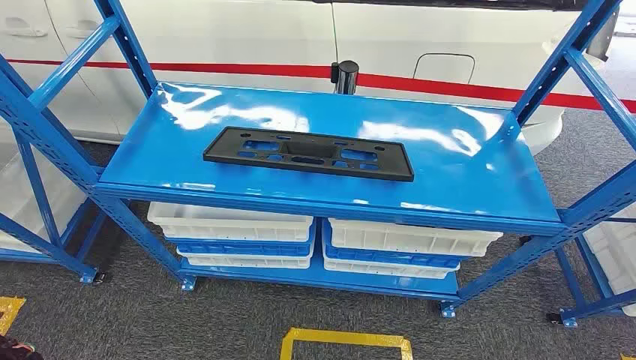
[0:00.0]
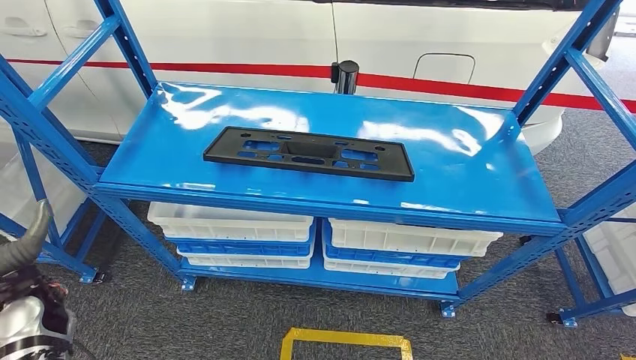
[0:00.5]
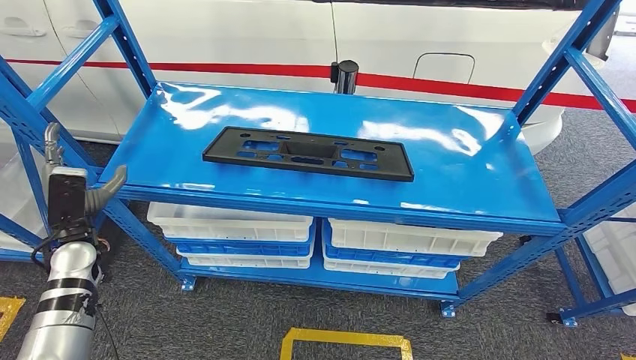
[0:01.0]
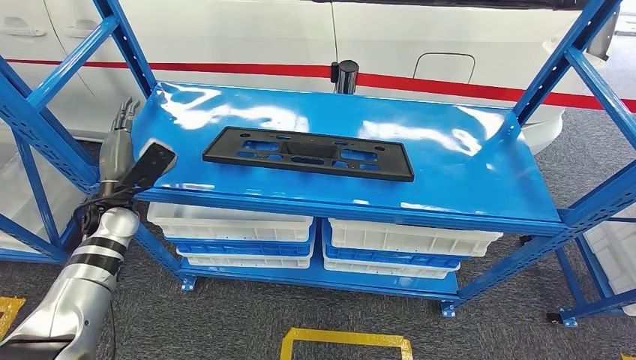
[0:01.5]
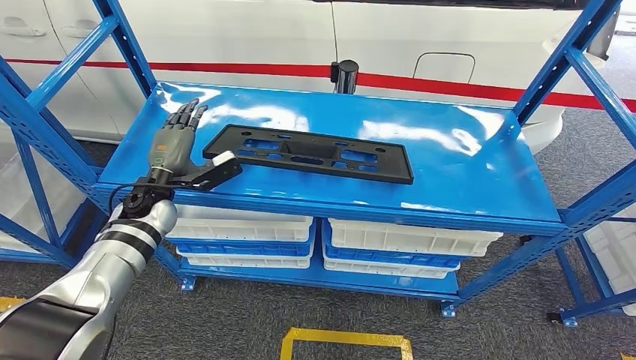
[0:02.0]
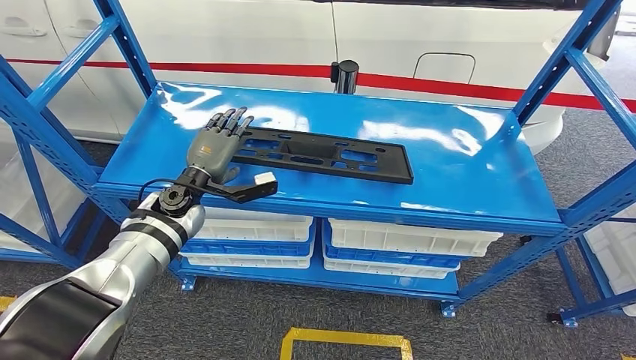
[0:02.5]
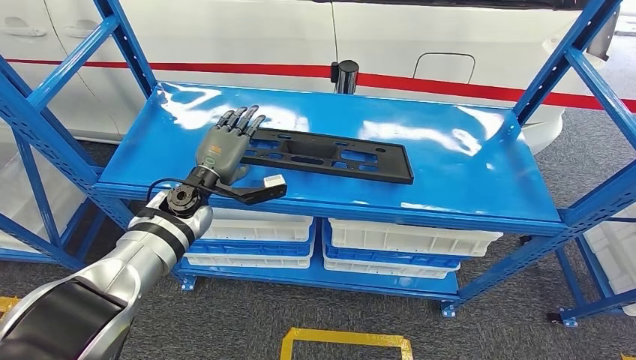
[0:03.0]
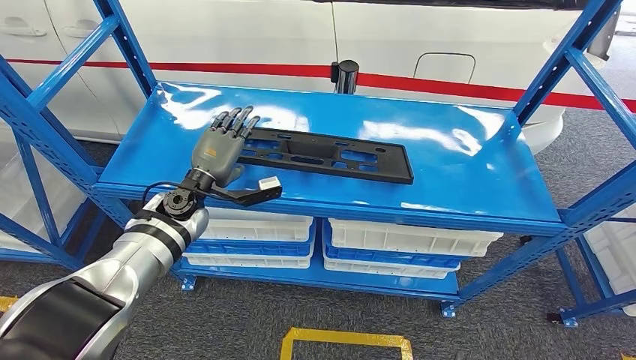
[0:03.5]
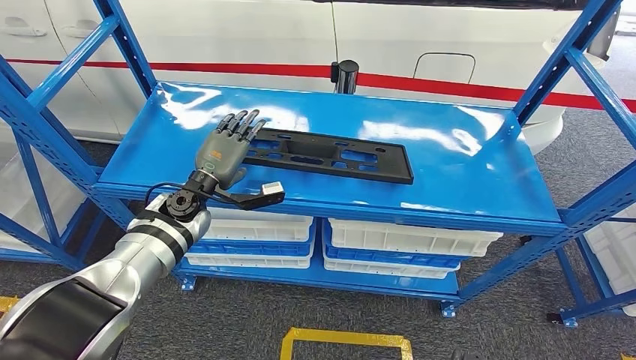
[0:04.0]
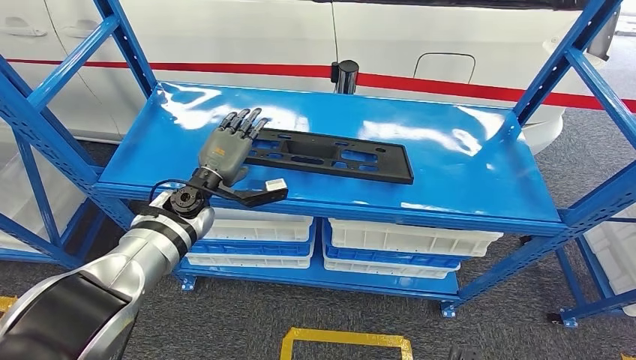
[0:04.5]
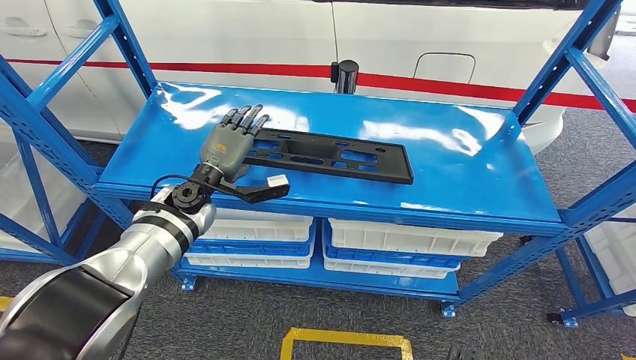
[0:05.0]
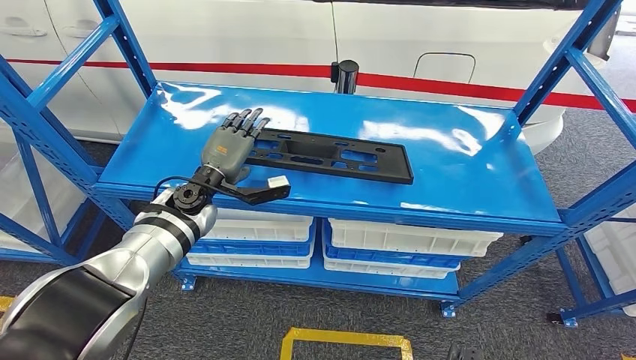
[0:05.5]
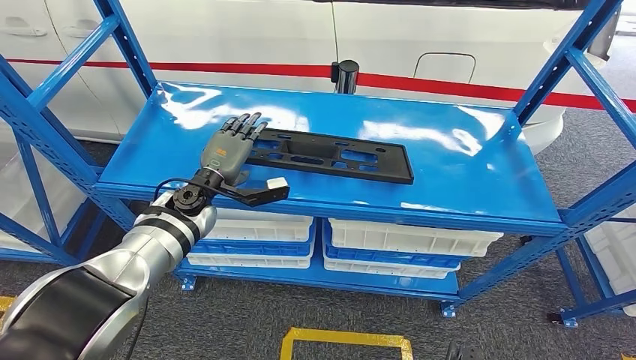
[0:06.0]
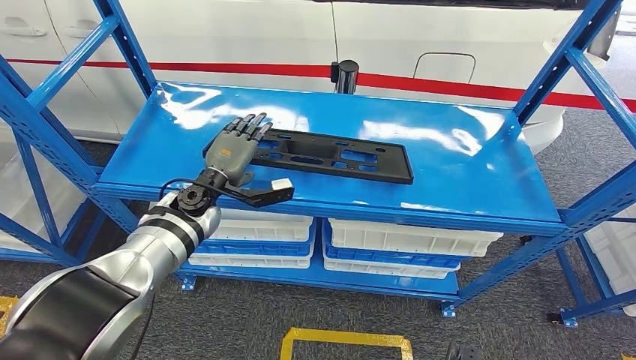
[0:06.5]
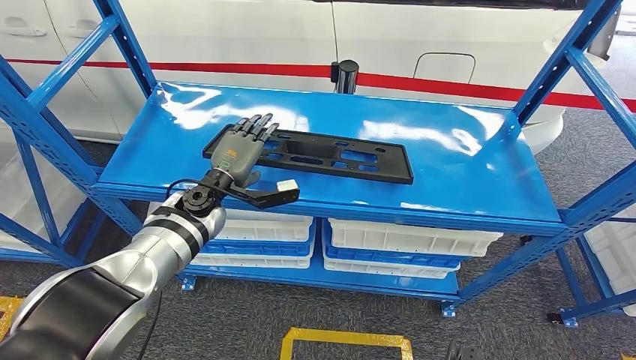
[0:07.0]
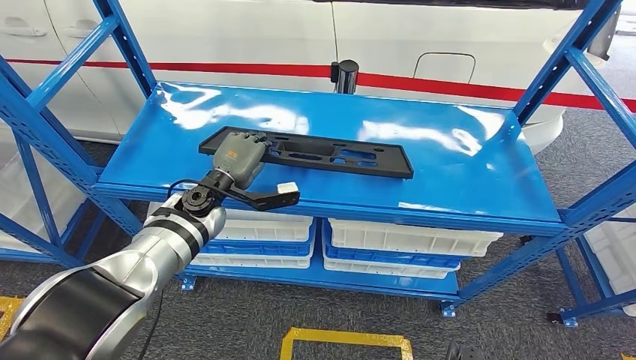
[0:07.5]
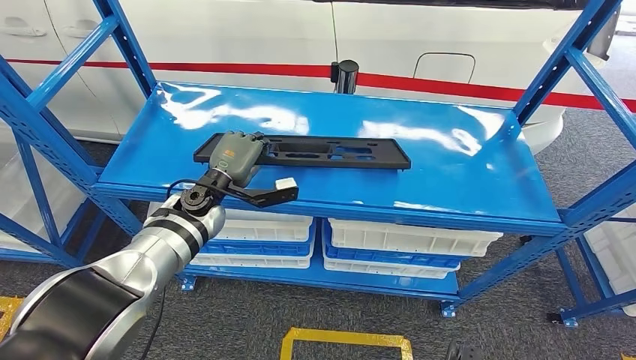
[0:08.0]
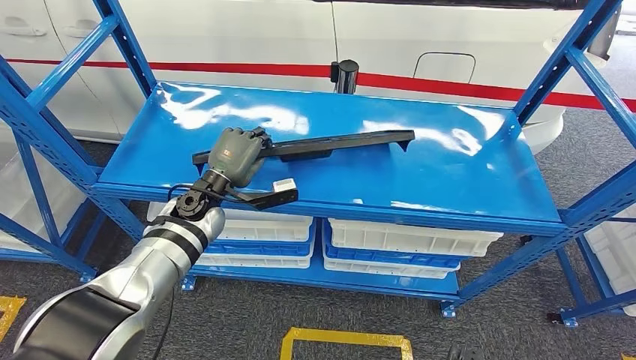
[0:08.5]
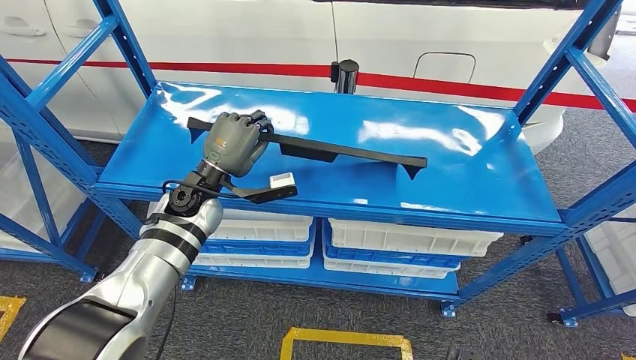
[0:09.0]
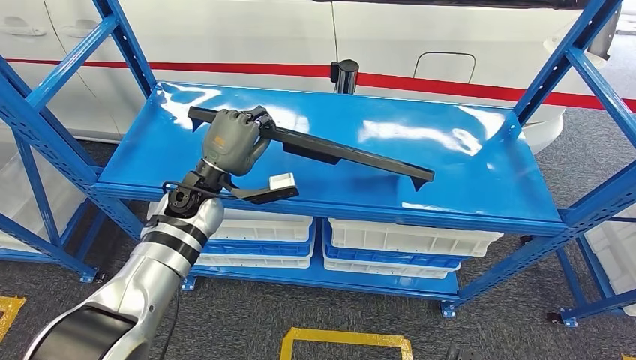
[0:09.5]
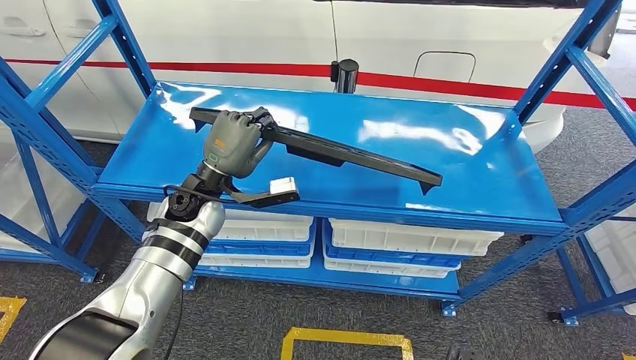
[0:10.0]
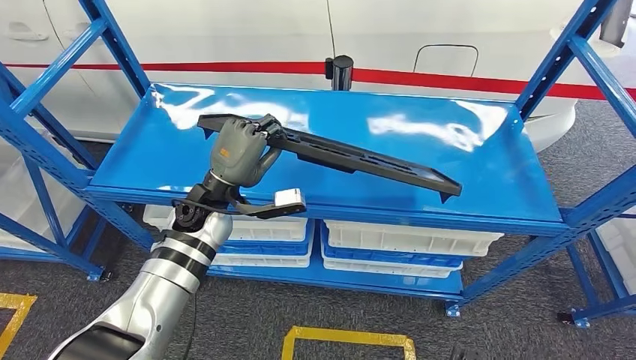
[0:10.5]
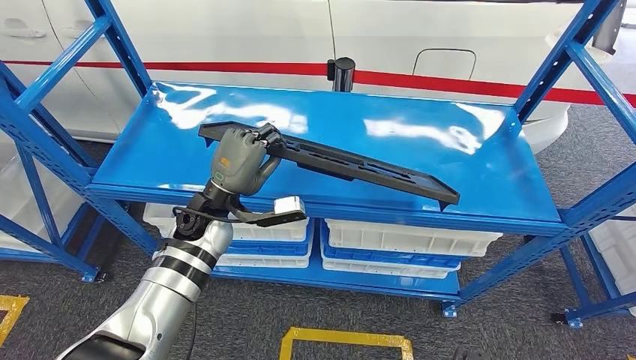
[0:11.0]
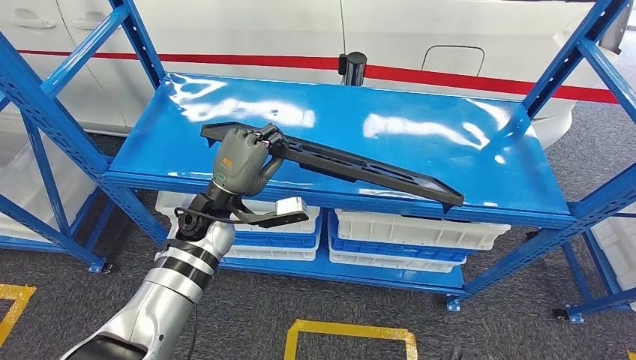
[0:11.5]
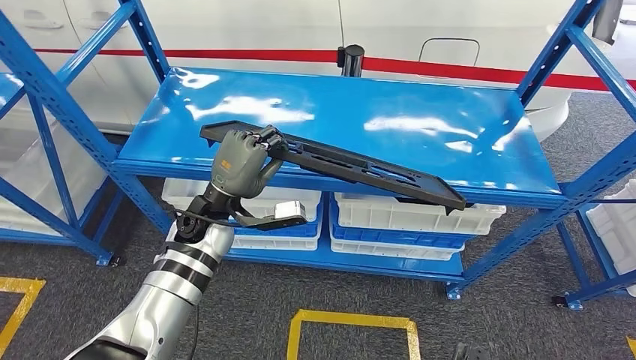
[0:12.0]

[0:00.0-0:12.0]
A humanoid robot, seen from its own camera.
Step, 0:00.0 to 0:10.0: Pick up the large material from the shelf.
0:02.0 to 0:04.0: The left hand moves to the right, approximately 10 cm.
0:04.0 to 0:08.0: The hands stay close to where they were, moving slightly.

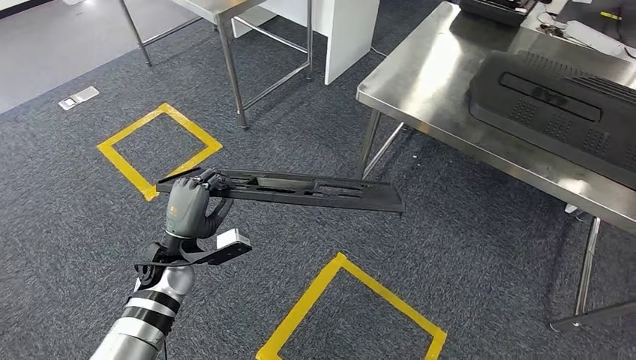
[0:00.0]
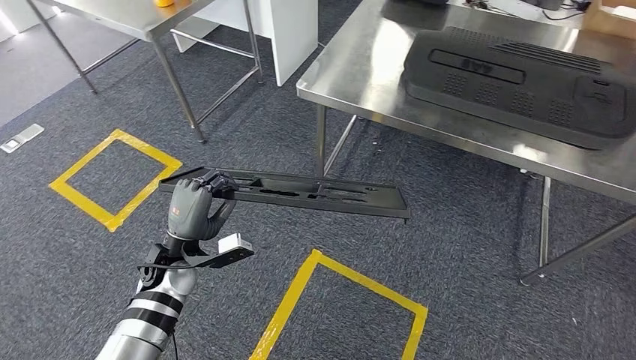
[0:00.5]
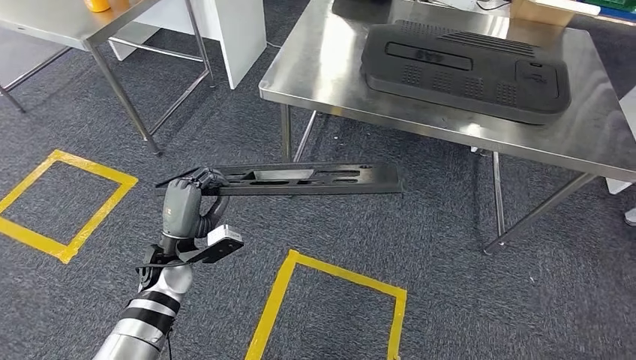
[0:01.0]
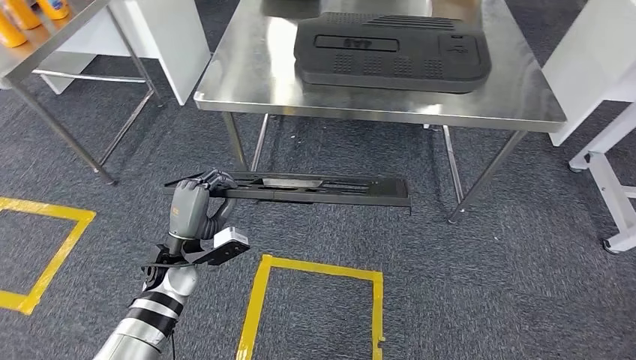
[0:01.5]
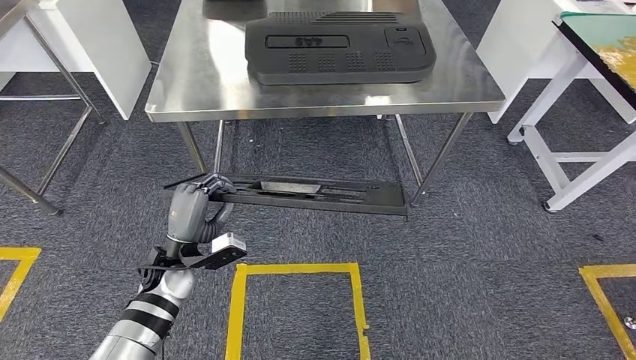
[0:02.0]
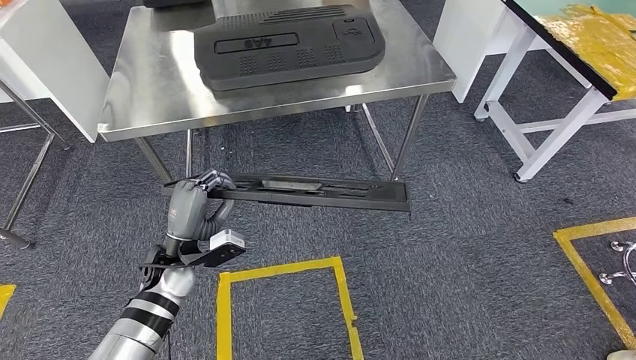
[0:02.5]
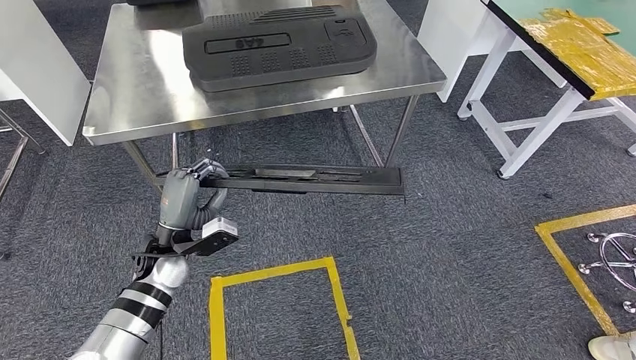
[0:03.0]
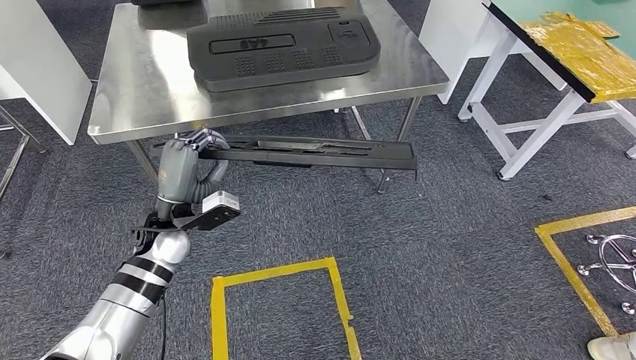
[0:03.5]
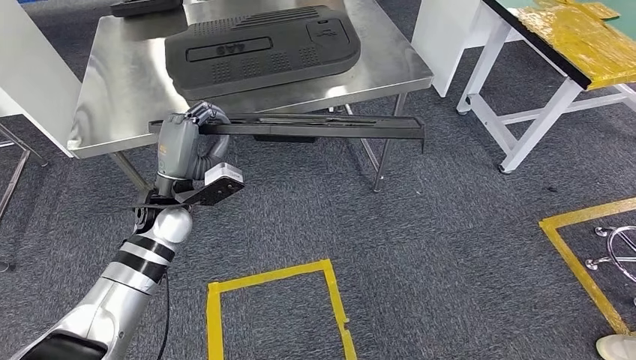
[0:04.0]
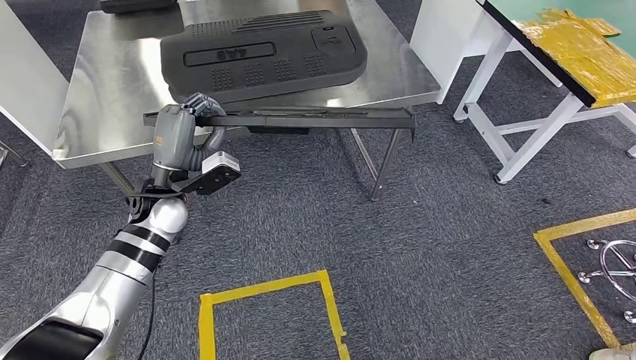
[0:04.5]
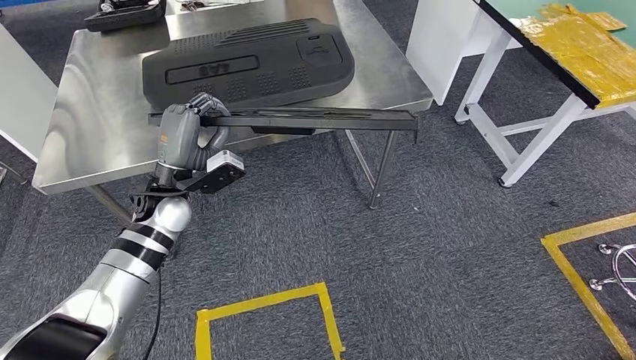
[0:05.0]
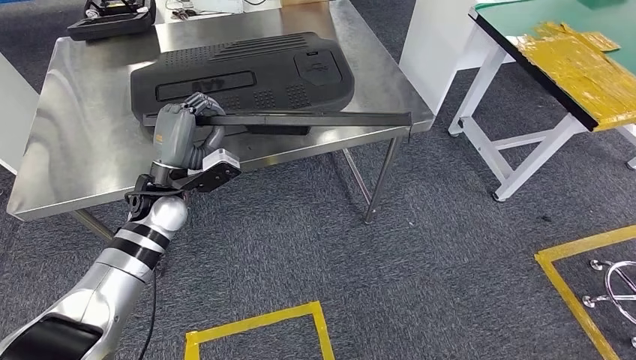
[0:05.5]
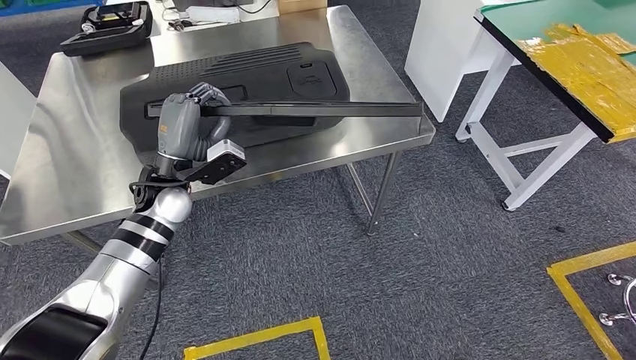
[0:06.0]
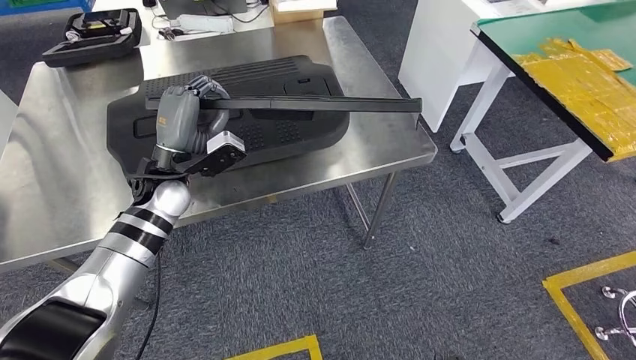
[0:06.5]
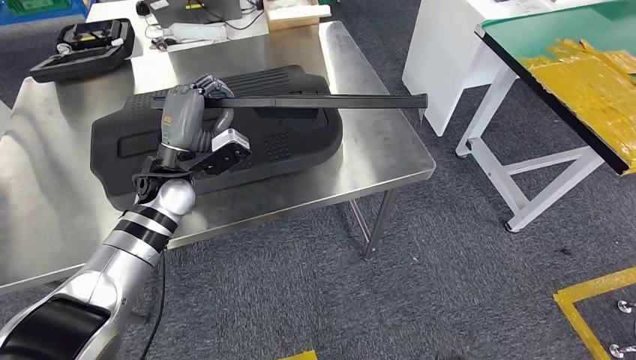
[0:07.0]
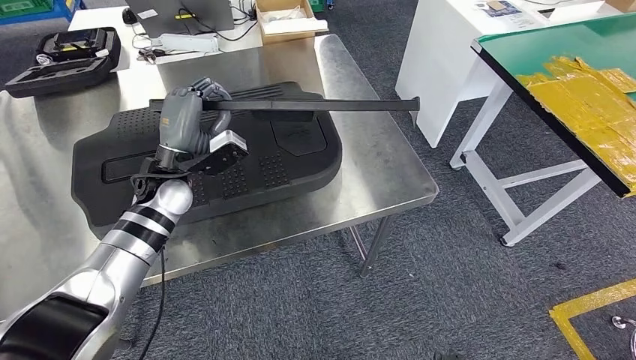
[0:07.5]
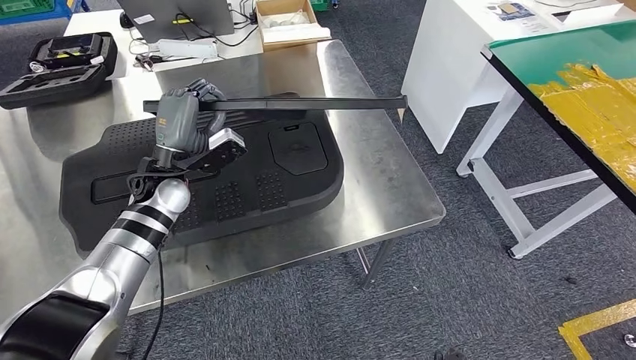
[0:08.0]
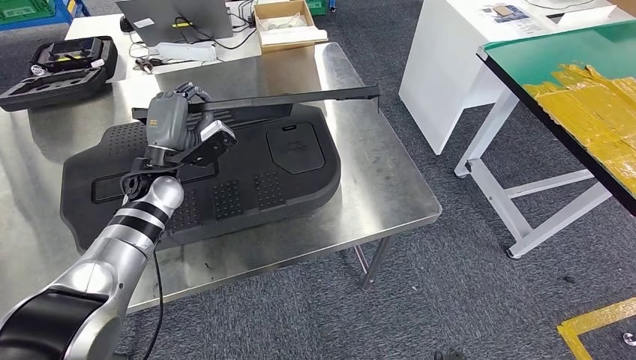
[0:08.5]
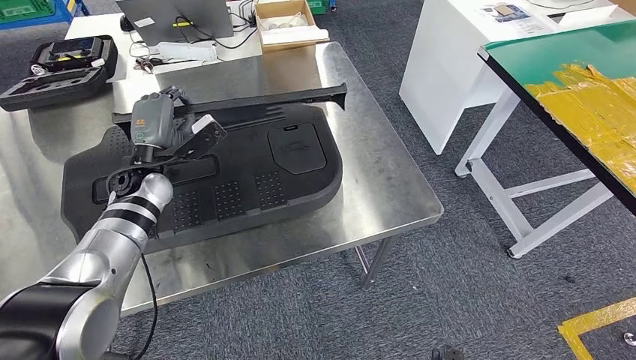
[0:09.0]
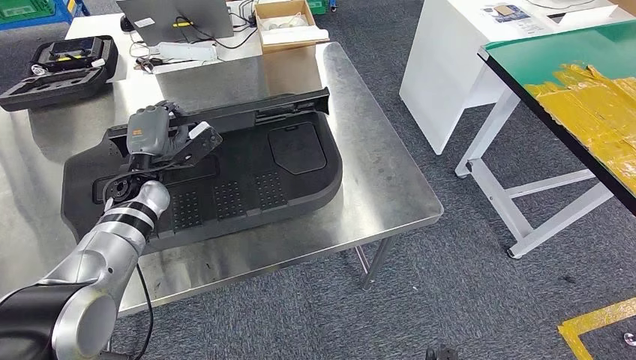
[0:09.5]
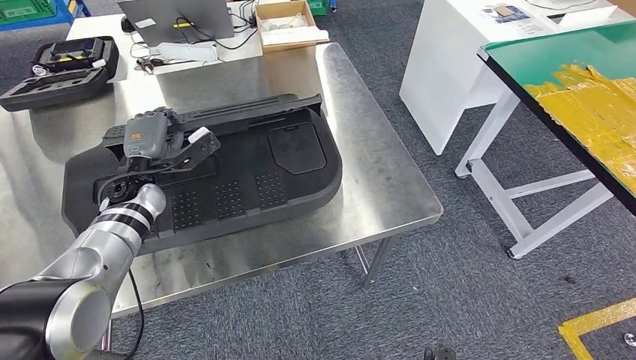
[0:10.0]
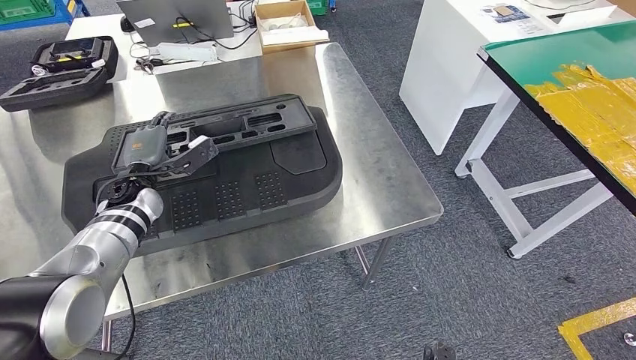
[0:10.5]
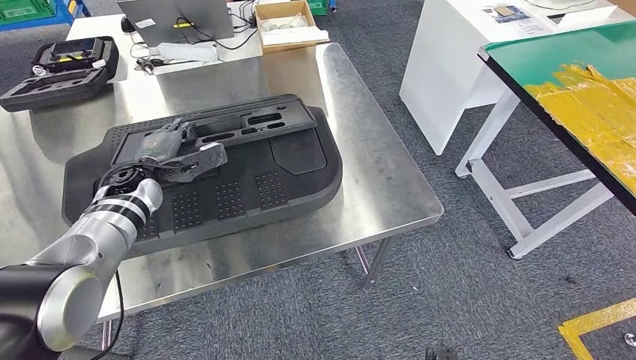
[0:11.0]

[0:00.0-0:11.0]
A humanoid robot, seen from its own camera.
Step, 0:00.0 to 0:02.5: Move the large material to the workbench.
